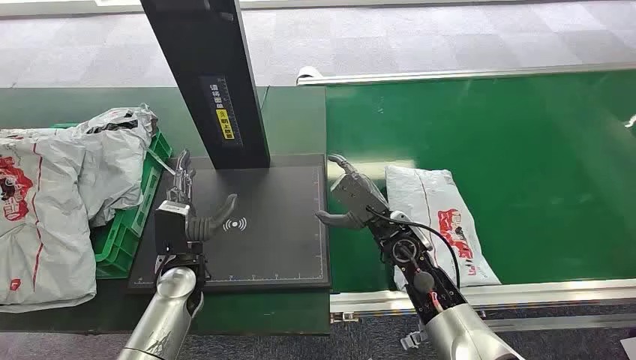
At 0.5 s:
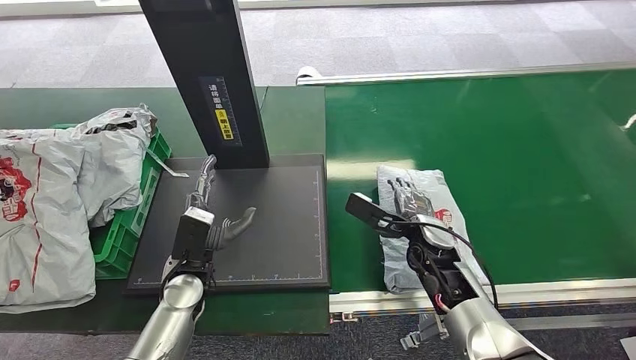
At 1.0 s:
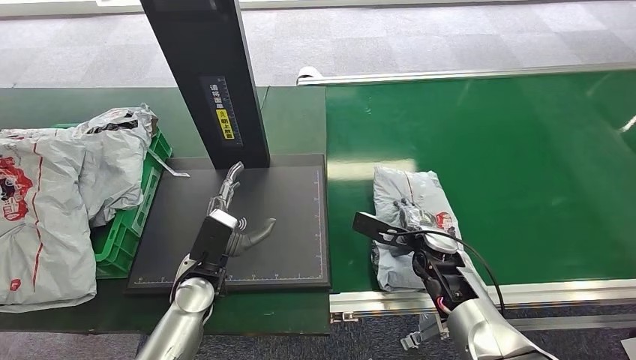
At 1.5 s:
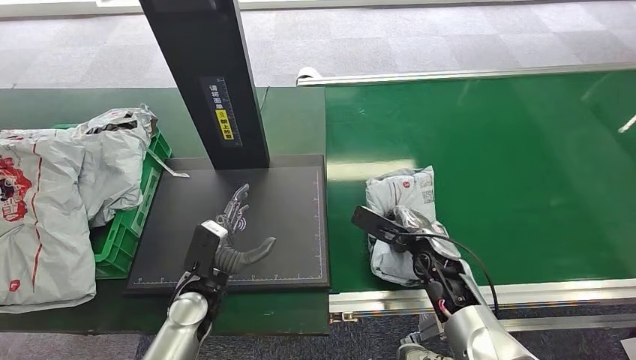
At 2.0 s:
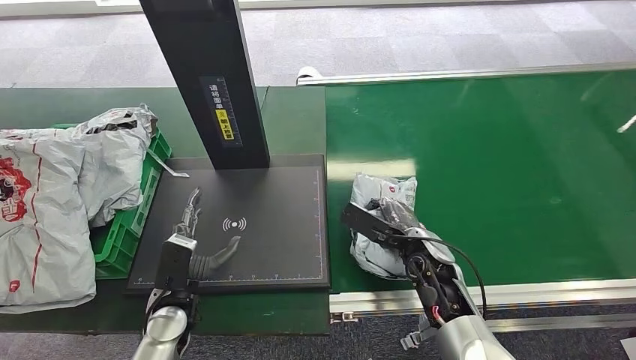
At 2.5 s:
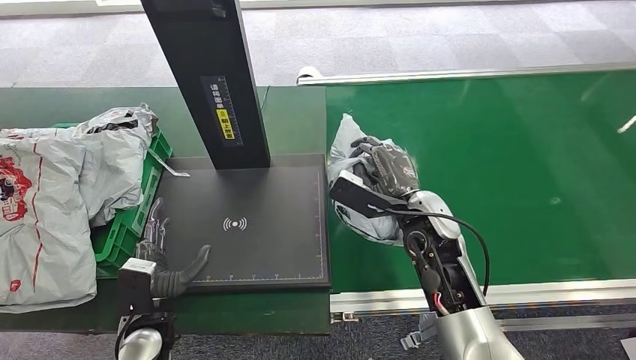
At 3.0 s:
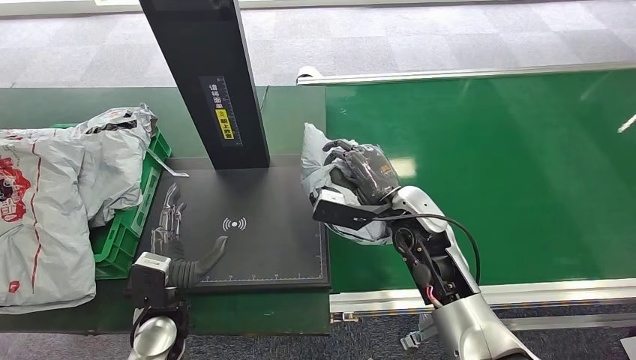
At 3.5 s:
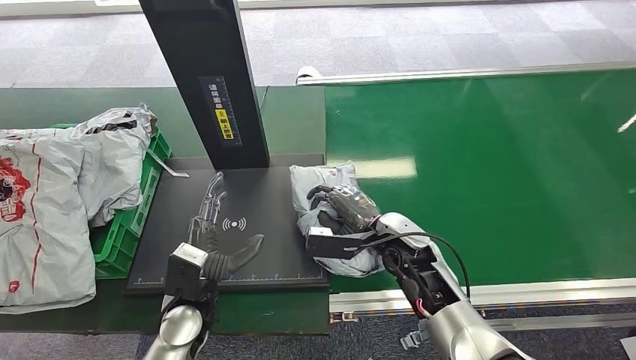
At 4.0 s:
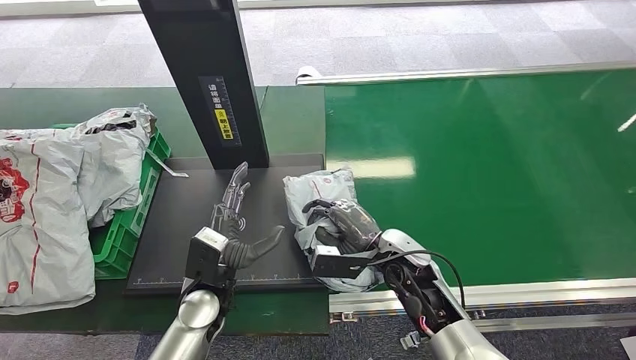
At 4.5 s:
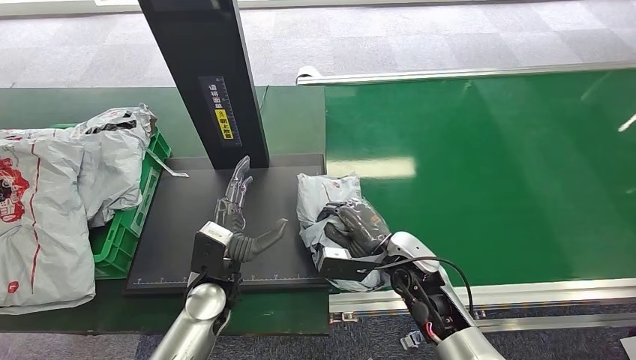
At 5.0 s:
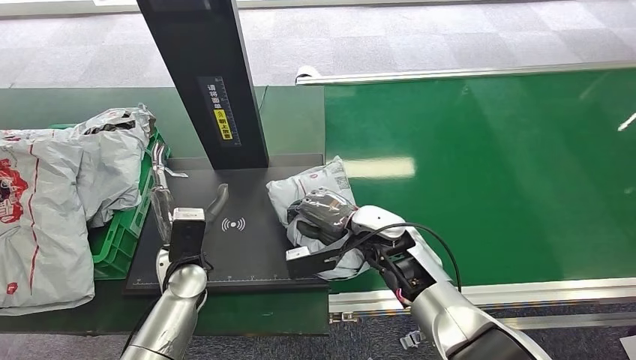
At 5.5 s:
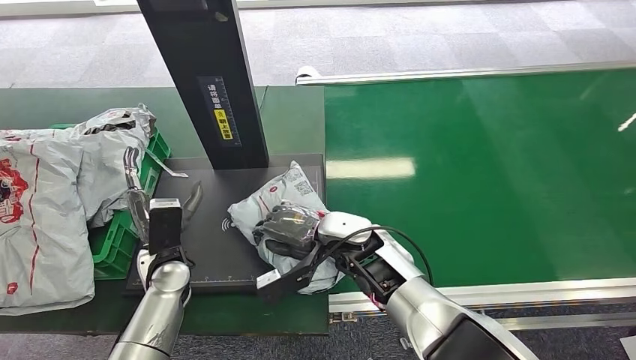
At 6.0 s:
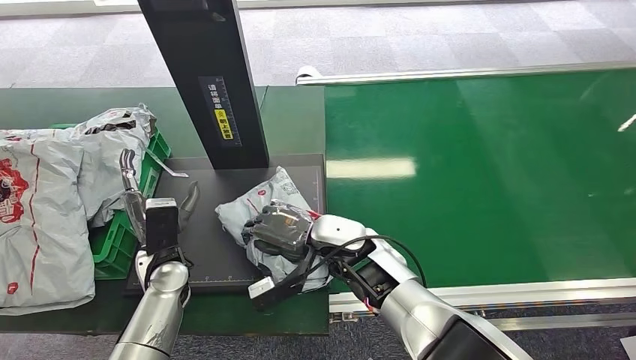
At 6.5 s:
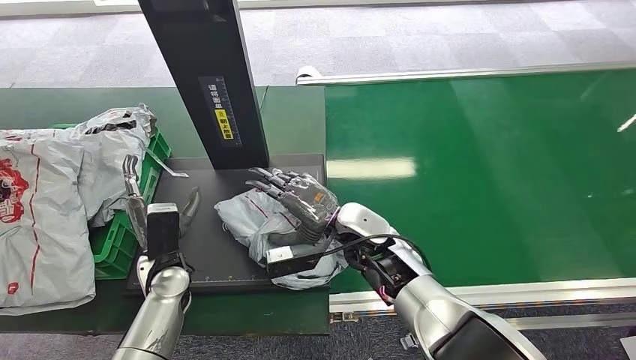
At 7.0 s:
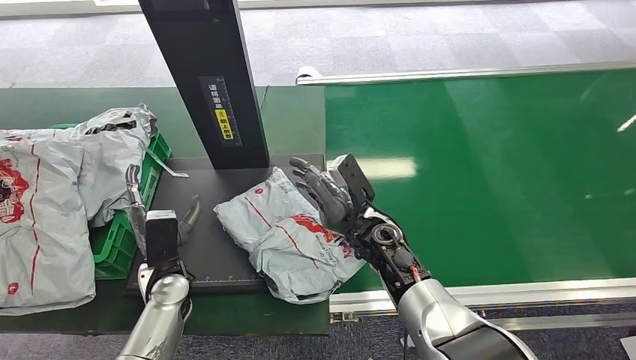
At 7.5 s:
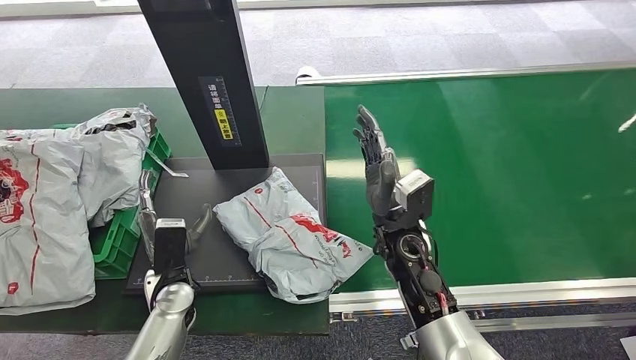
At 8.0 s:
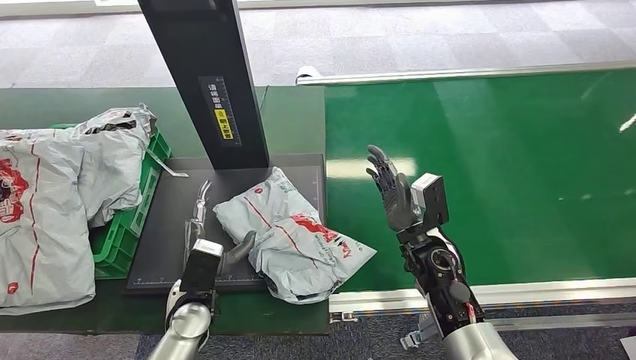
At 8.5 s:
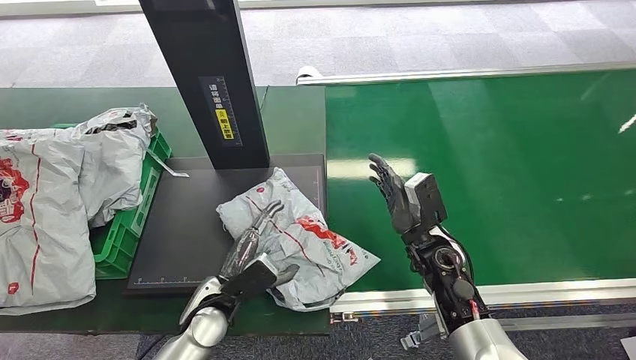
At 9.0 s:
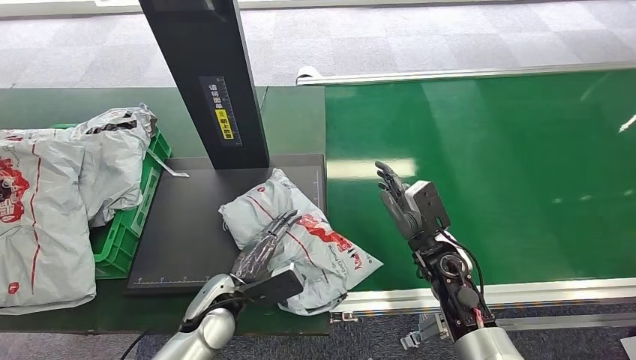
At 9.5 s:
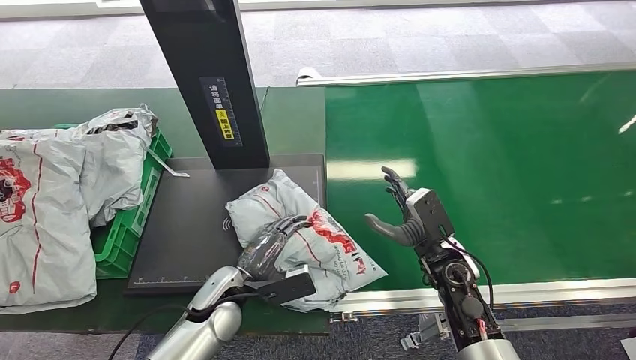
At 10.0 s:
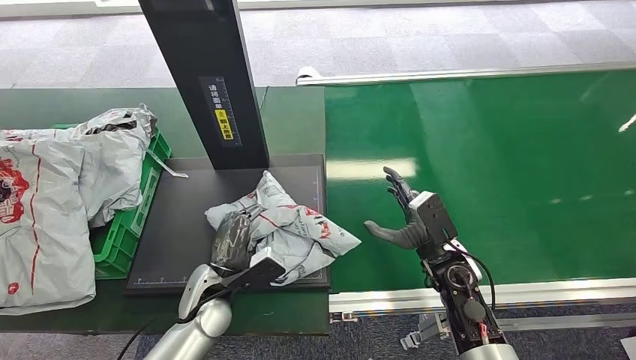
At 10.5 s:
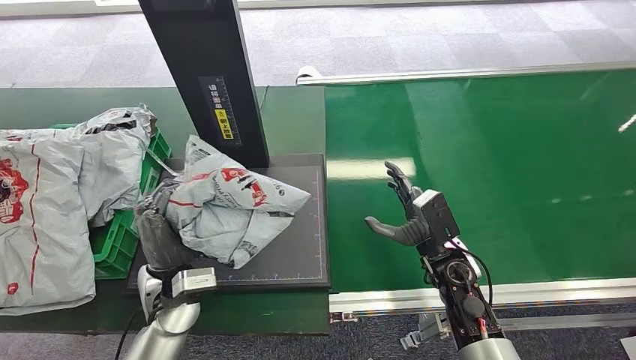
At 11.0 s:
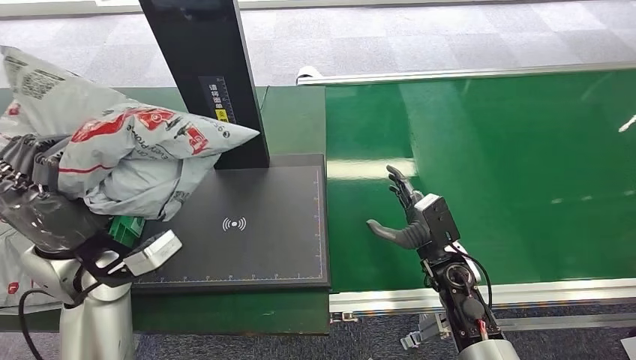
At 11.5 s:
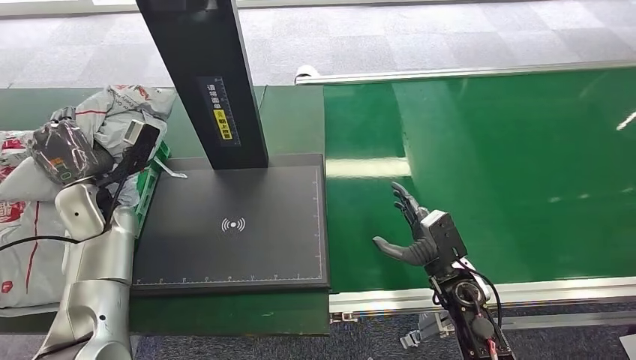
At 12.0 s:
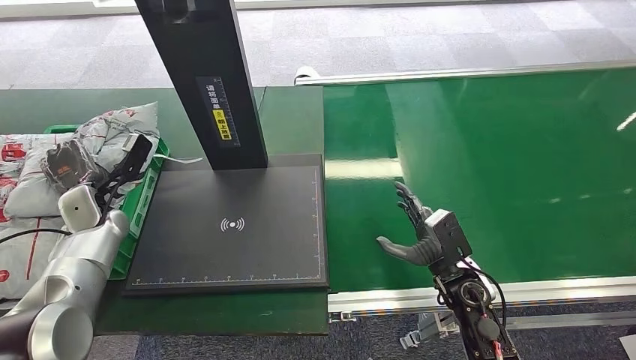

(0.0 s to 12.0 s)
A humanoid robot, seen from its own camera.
Step, 0.0 s - 2.5 s: Pick up the package from the conveyor belt.
Step, 3.0 s - 7.0 s: Place the package onto the inbound machine.
Step, 8.0 s - 10.5 s: Pick up the package from the inbound machine.
2.0 s - 4.0 s: The right hand goes upward and returns, approximately 10 cm each way, while the left hand moves to the right, about 5 cm.
4.0 s - 6.0 s: The two hands go approximately 10 cm to the left.
6.0 s - 8.0 s: The right hand shifts some 15 cm to the right. The left hand travels backward and to the right by about 5 cm.

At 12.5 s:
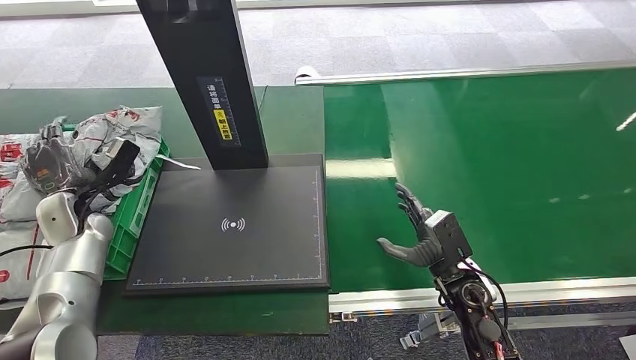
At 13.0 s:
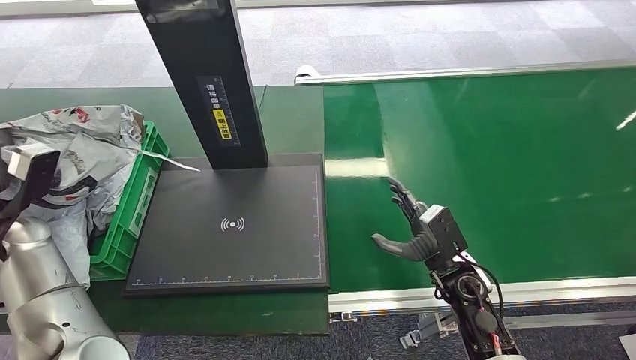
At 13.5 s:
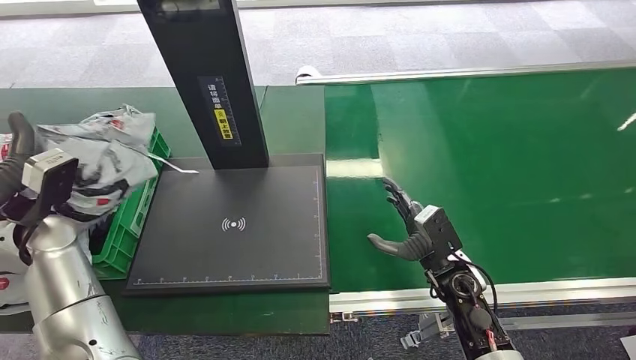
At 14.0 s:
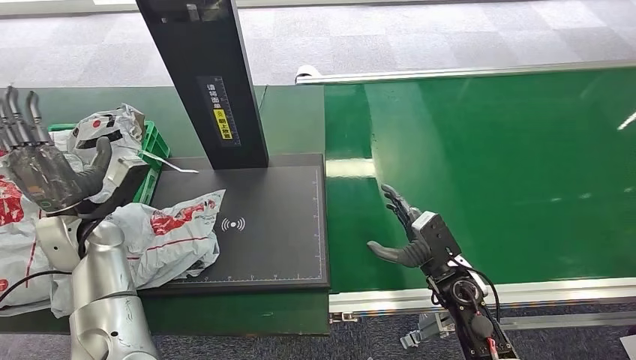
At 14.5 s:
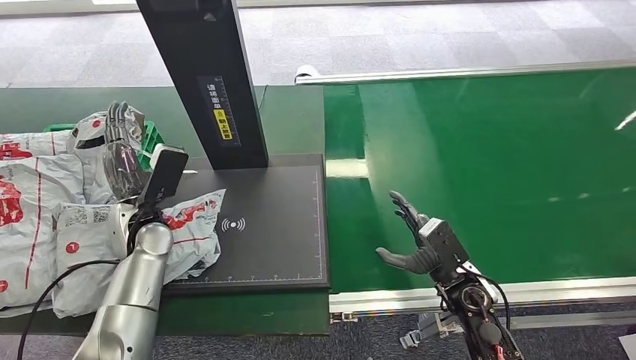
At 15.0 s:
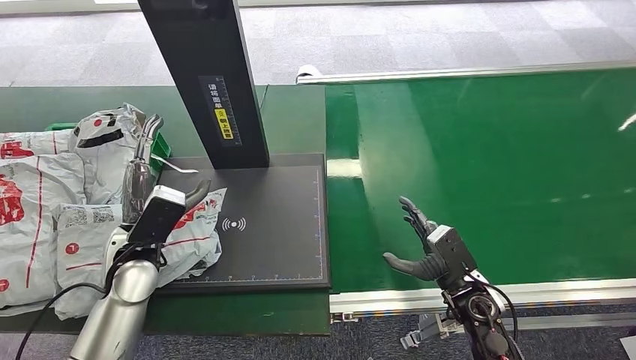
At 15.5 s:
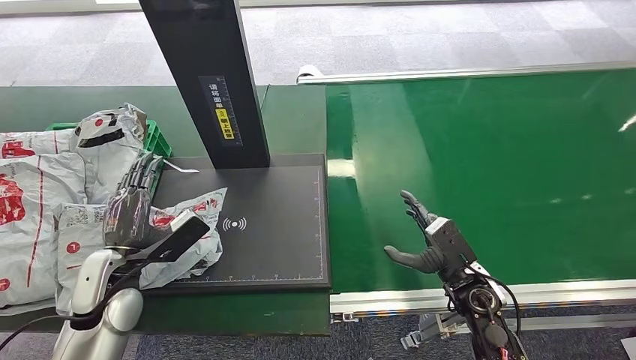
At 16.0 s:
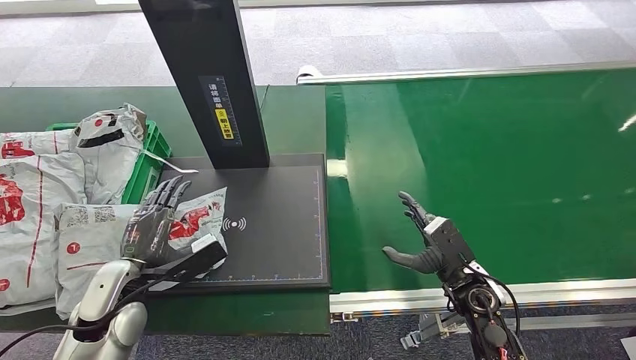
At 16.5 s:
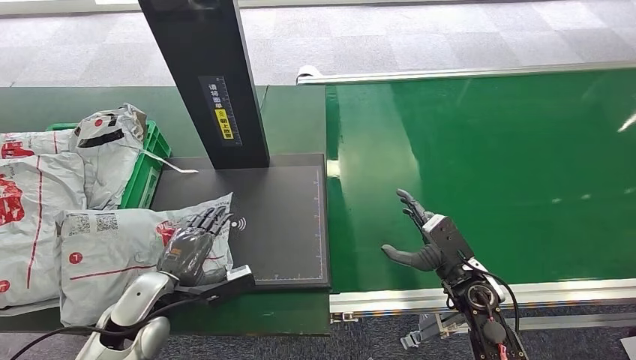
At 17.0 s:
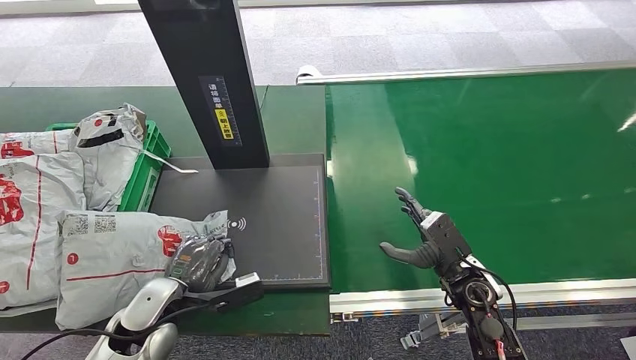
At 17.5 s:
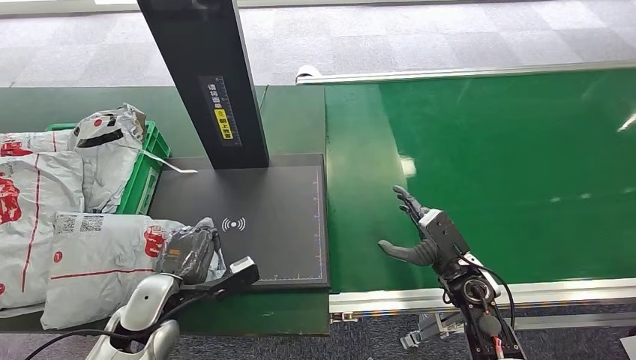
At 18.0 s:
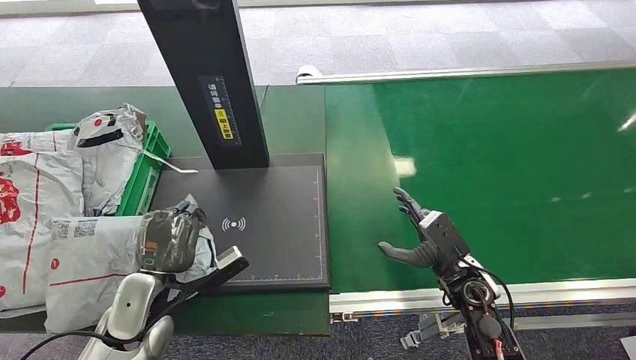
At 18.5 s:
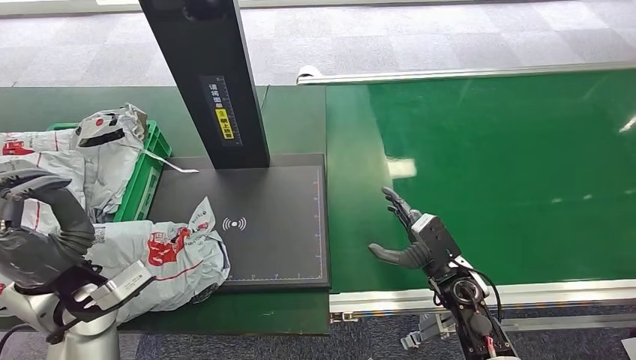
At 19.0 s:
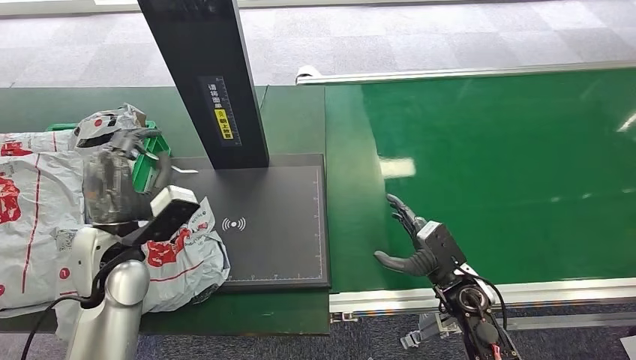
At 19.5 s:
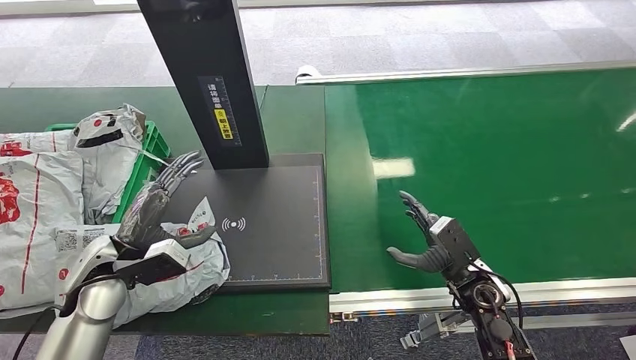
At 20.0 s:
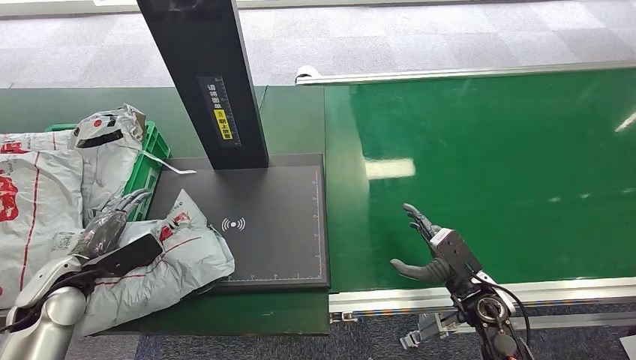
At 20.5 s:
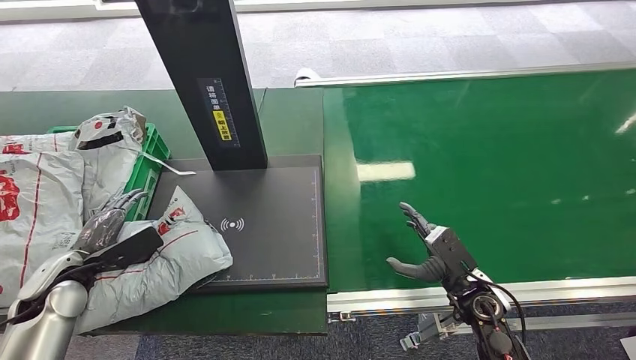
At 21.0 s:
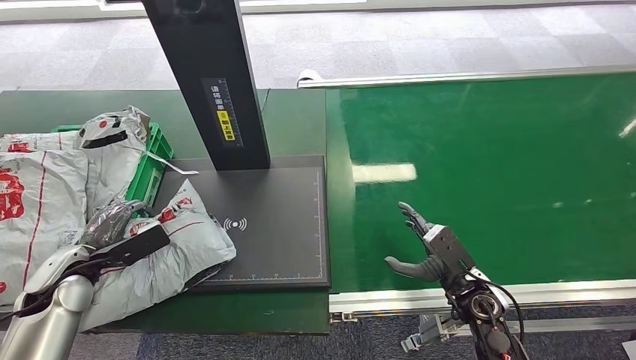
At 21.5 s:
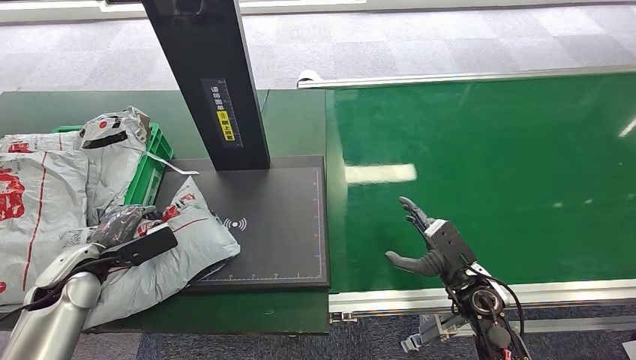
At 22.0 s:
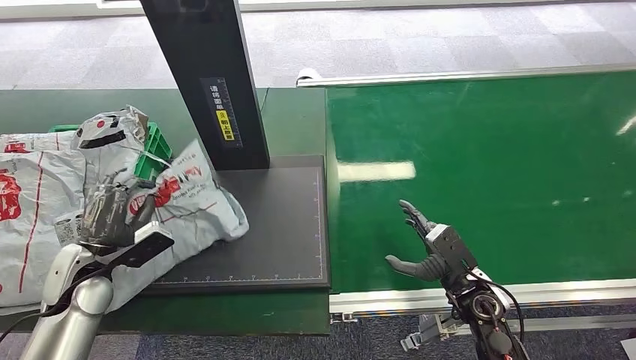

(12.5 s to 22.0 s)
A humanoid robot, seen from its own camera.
14.5 s - 16.5 s: The left hand shifts about 15 cm backward and downward.
18.0 s - 20.0 s: The left hand moves to the left, approximately 15 cm.
